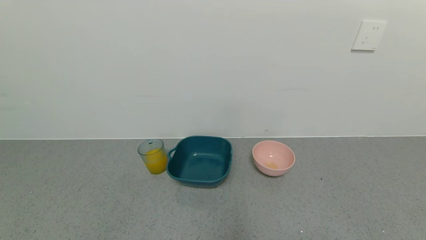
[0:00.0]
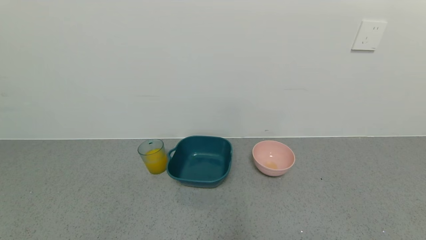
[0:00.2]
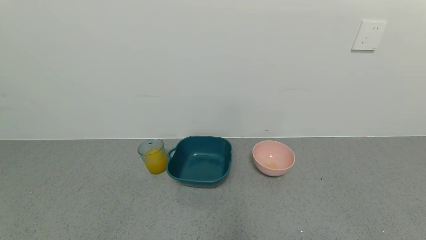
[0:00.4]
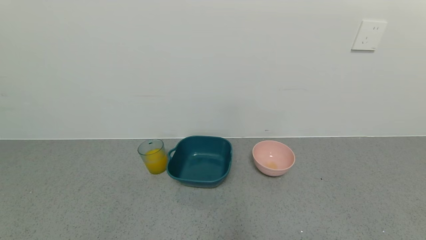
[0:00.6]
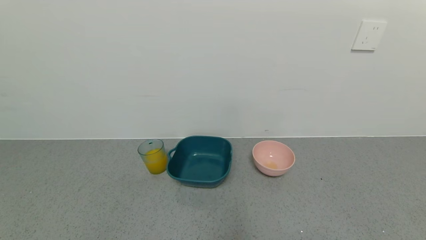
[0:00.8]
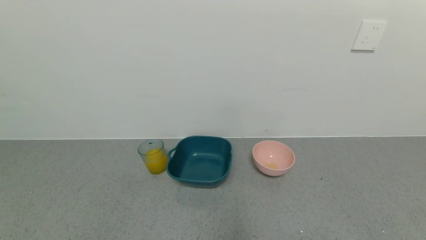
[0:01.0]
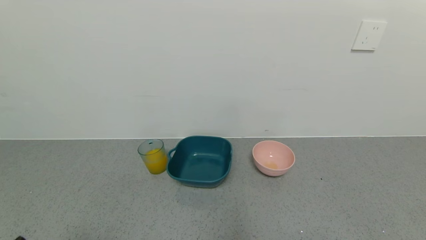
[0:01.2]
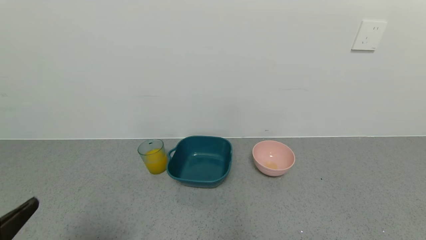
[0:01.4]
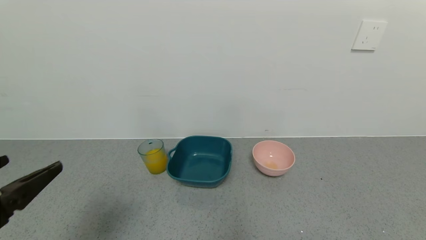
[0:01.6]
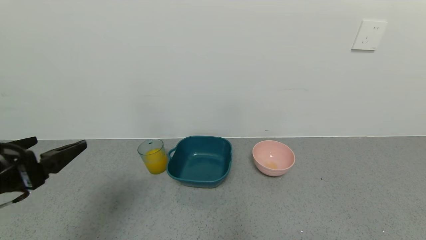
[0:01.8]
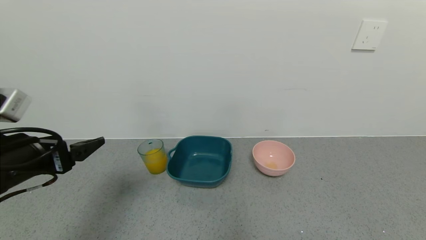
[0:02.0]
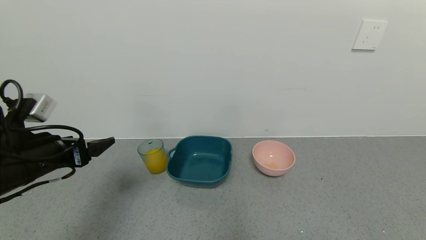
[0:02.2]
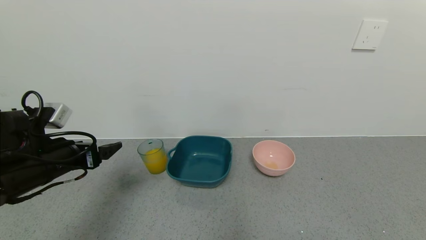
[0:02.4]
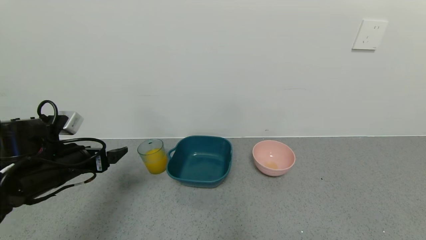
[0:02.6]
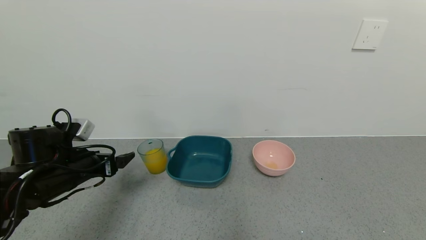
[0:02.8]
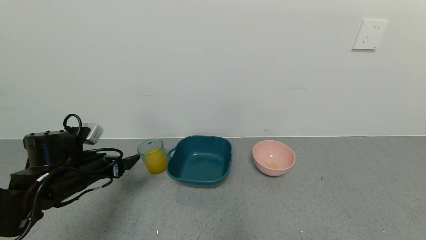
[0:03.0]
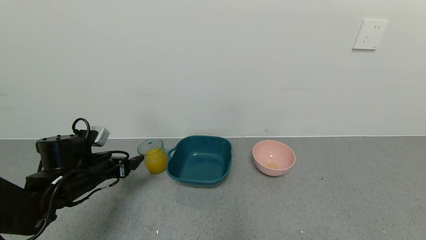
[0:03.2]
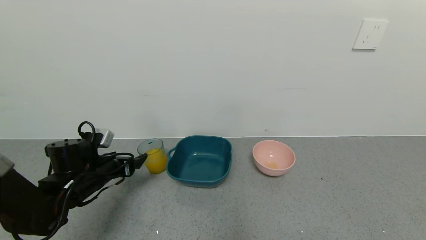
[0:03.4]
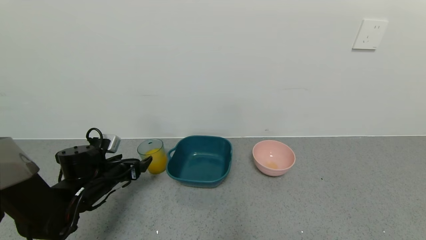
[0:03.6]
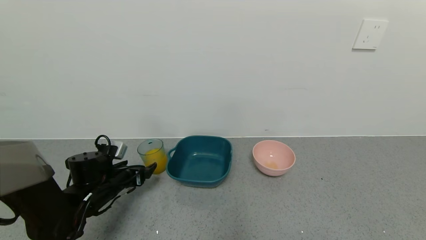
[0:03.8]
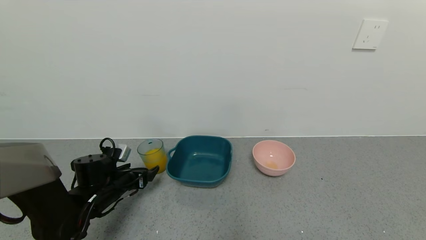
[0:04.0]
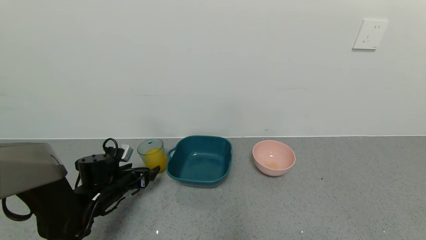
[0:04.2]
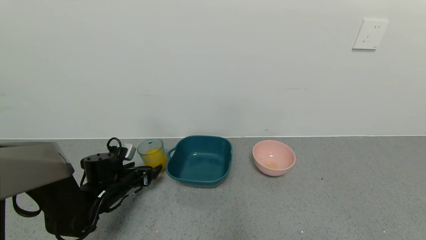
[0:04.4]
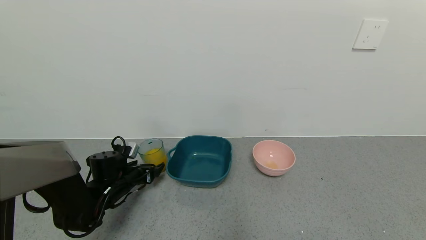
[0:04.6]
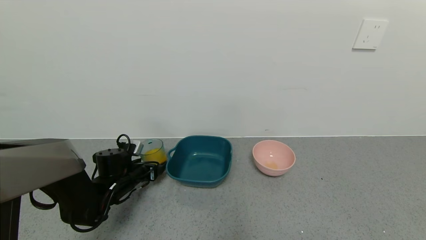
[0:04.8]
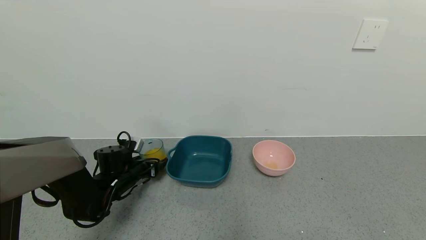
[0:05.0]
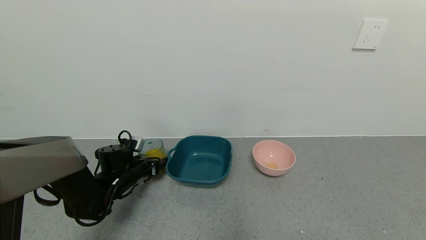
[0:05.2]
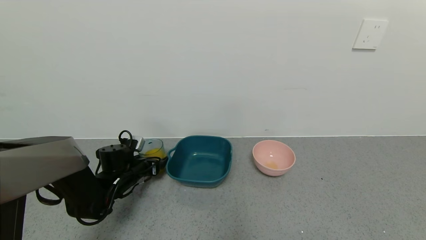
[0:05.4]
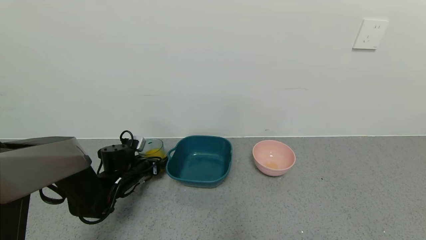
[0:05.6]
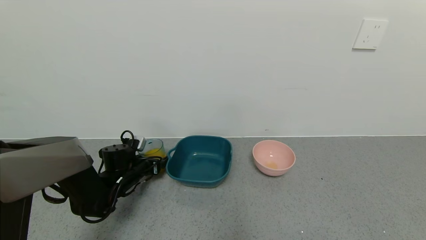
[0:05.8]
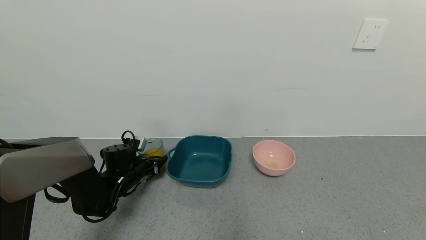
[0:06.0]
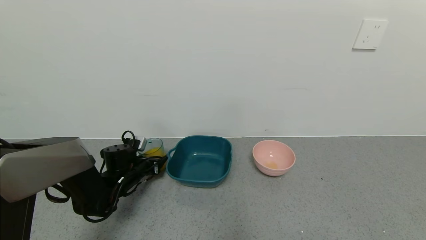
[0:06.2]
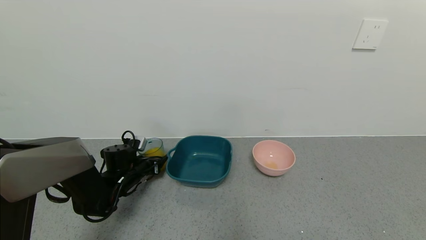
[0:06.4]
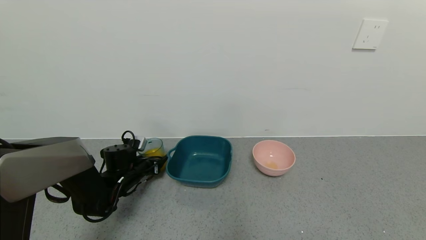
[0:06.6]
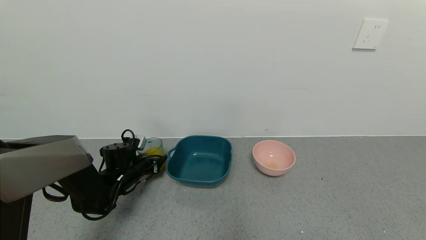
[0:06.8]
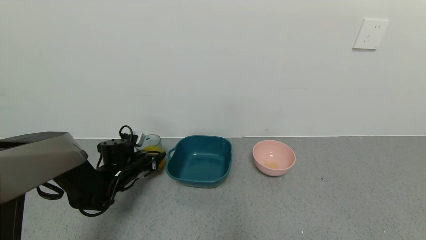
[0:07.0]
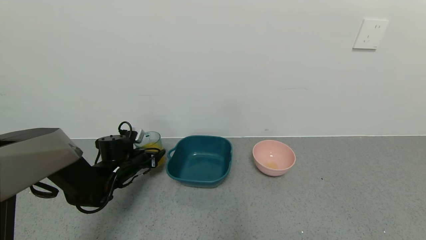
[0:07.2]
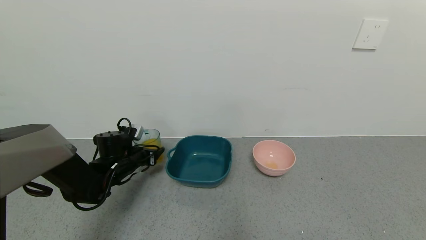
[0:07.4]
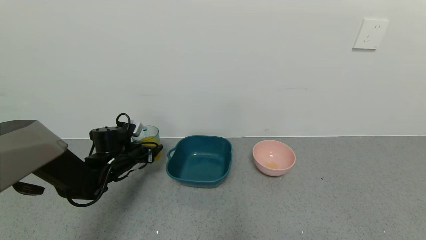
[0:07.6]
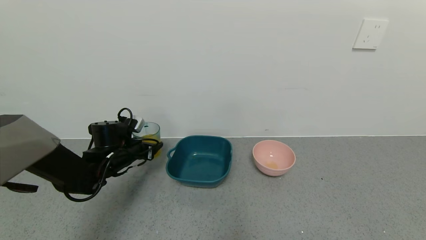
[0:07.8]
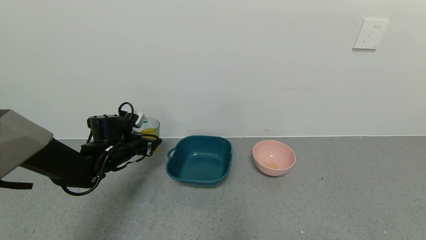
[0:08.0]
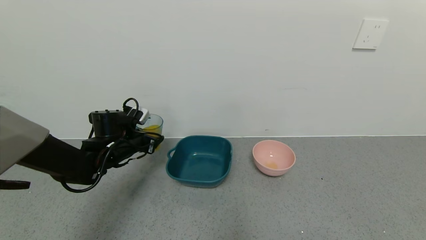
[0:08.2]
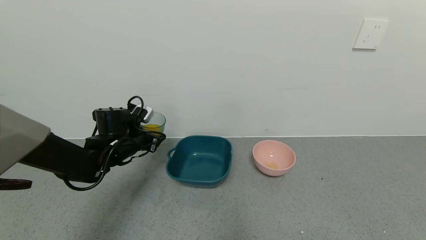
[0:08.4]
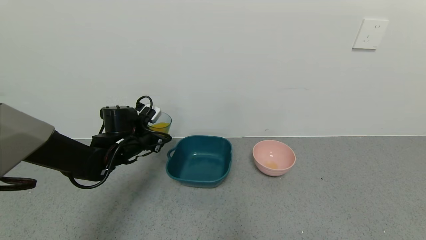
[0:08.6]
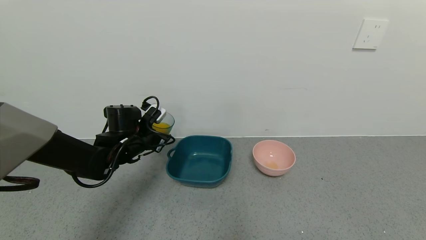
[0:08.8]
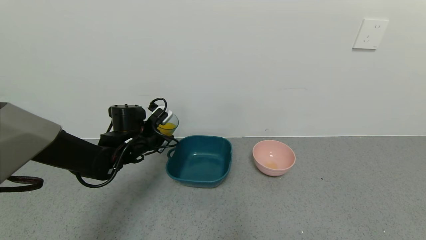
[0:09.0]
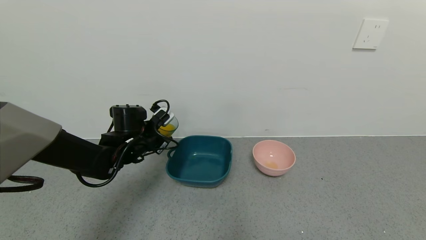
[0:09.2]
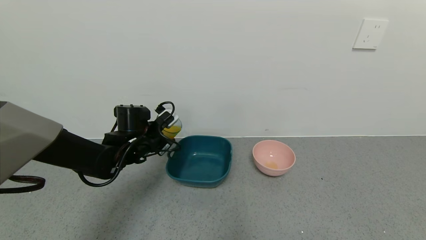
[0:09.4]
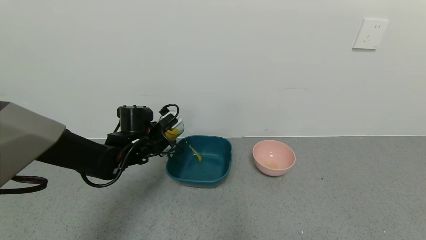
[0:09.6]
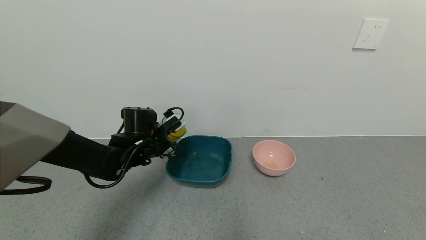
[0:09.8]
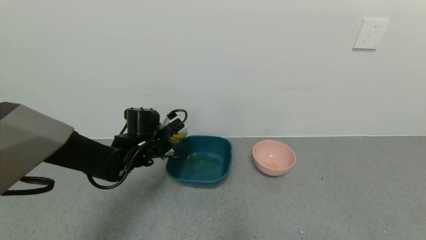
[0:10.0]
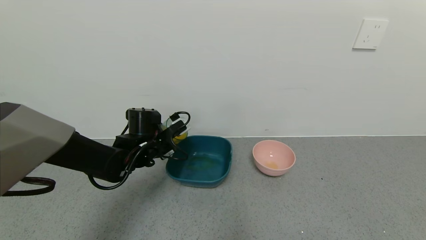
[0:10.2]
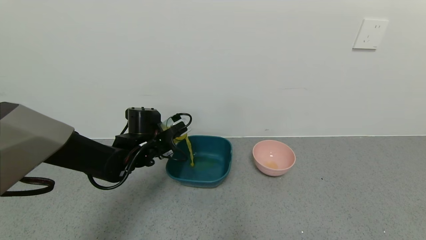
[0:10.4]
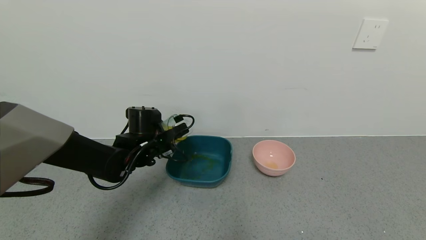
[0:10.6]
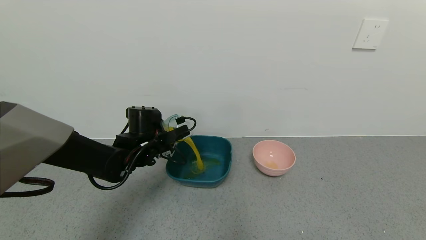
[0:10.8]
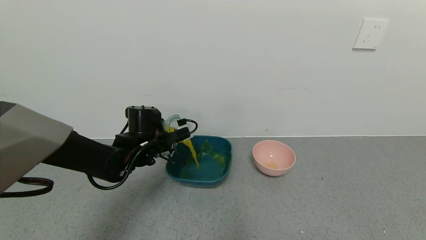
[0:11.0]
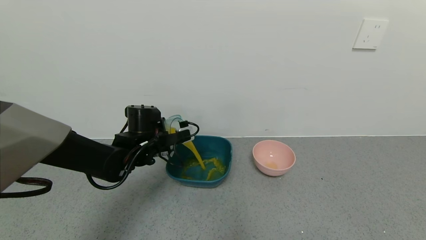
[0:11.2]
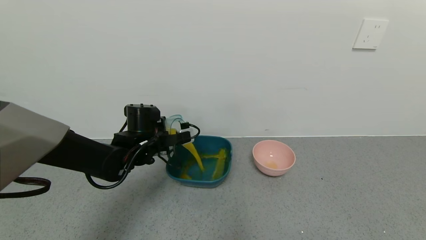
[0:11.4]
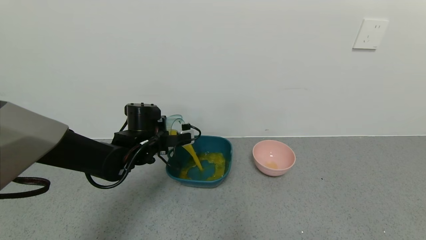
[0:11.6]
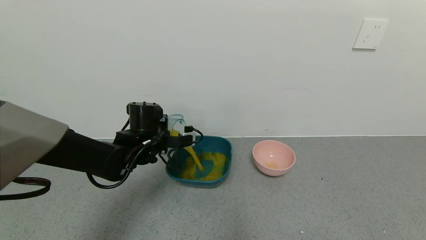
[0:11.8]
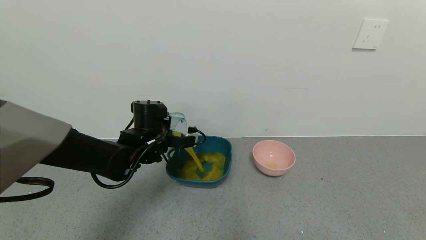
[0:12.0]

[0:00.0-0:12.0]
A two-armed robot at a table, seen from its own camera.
Task of the whole recording: use a gripper to pick up the cup and pour the liquid into a bowl or tray.
Step, 0:06.4 to 0:09.0: Pick up blue cup filled with orange juice with left gripper.
0:00.0 to 0:01.6: The left gripper moves upward and forward, roughly 20 cm.
0:01.6 to 0:03.0: The left gripper goes roughly 20 cm forward and downward.
0:03.0 to 0:04.4: The left gripper is displaced downward and forward by some 10 cm.
0:04.4 to 0:06.0: The left gripper closes.
0:06.0 to 0:07.6: The left gripper shifts some 5 cm upward.
0:07.6 to 0:09.0: The left gripper is displaced to the right and upward by roughly 10 cm.

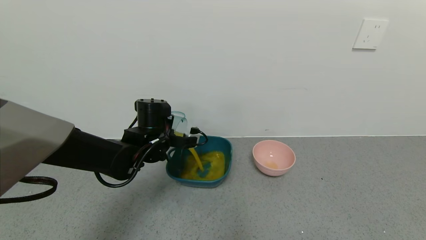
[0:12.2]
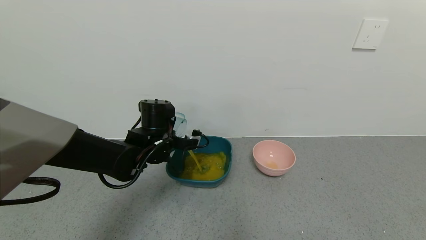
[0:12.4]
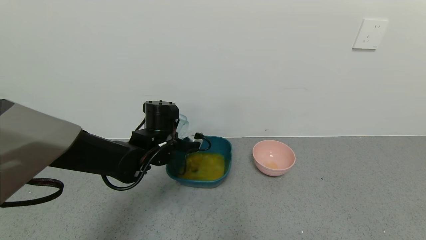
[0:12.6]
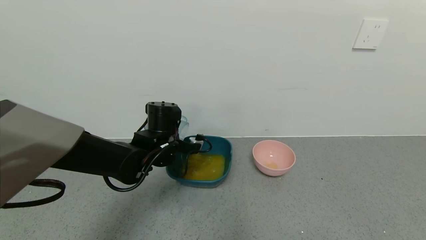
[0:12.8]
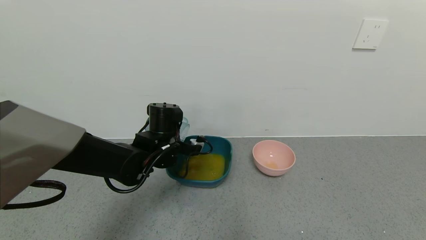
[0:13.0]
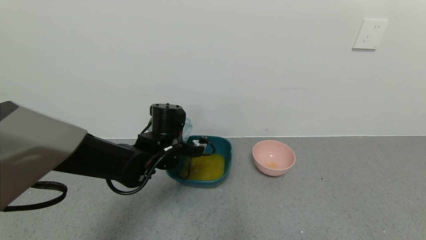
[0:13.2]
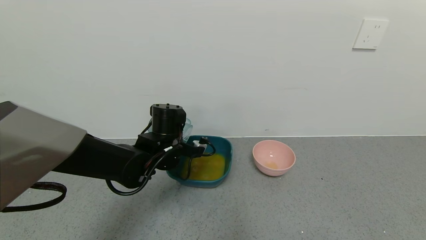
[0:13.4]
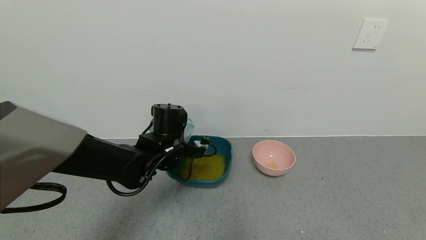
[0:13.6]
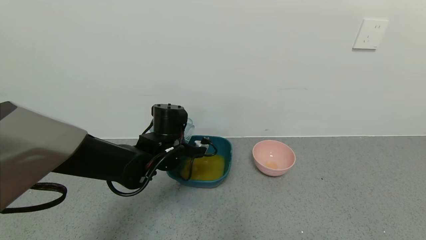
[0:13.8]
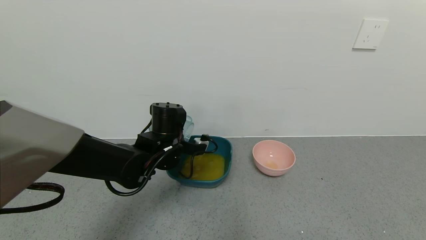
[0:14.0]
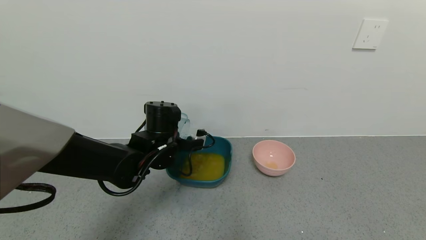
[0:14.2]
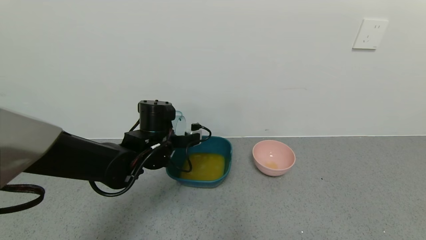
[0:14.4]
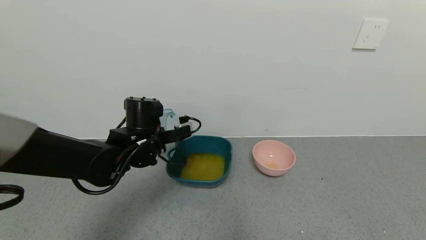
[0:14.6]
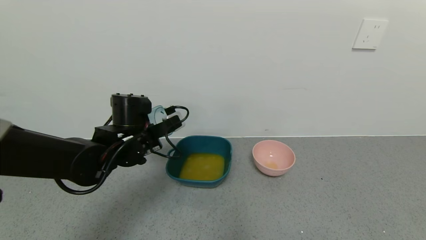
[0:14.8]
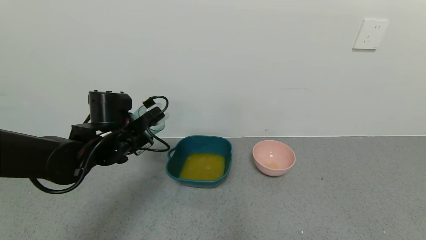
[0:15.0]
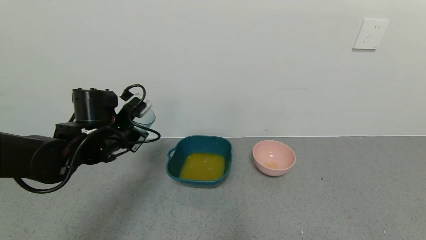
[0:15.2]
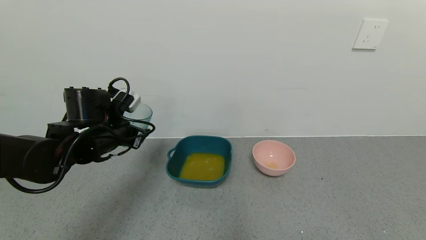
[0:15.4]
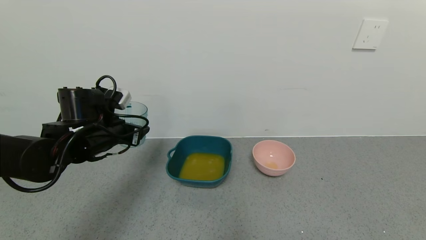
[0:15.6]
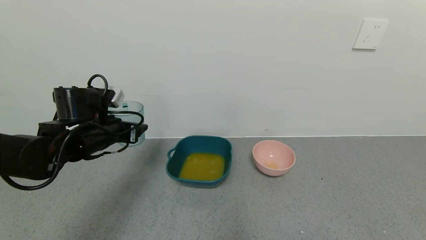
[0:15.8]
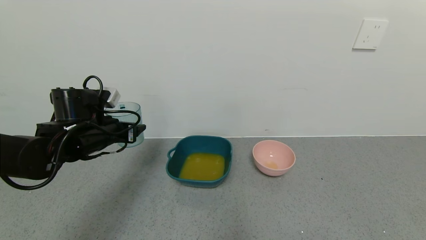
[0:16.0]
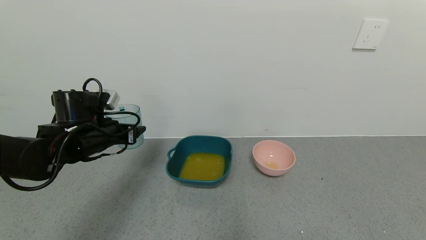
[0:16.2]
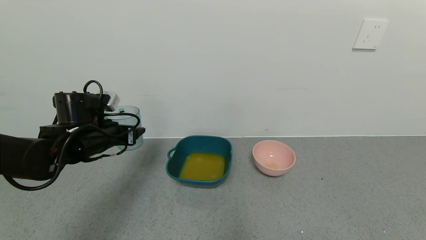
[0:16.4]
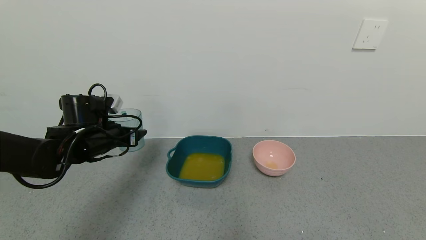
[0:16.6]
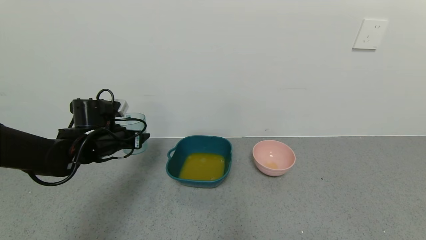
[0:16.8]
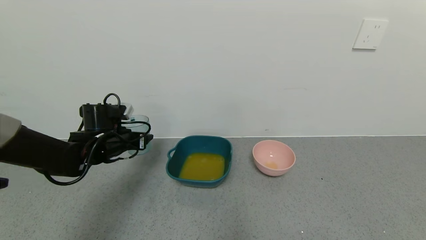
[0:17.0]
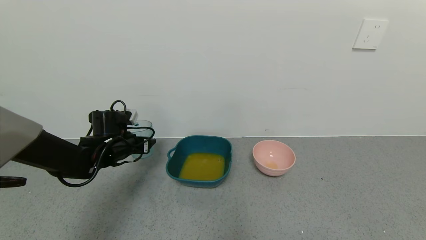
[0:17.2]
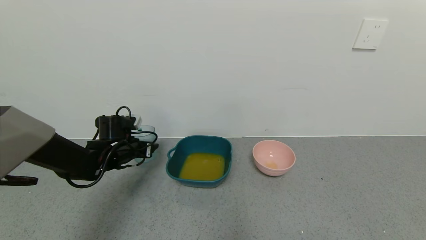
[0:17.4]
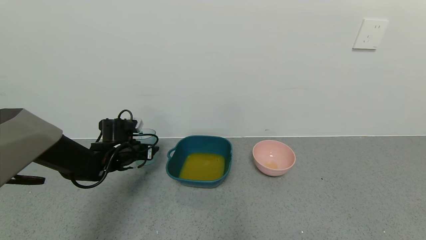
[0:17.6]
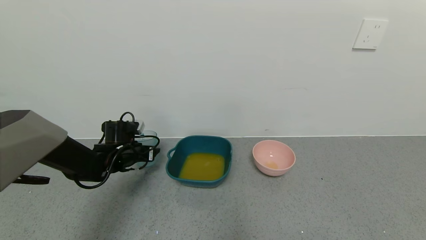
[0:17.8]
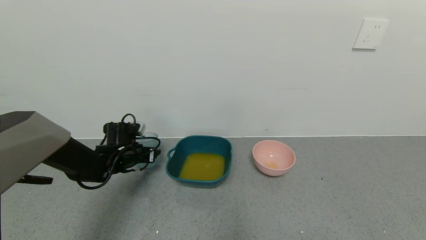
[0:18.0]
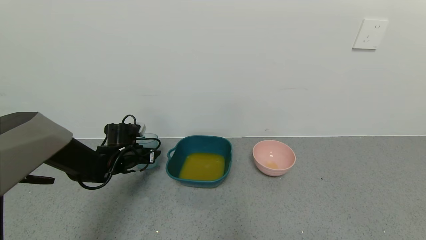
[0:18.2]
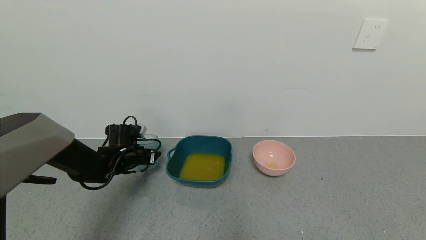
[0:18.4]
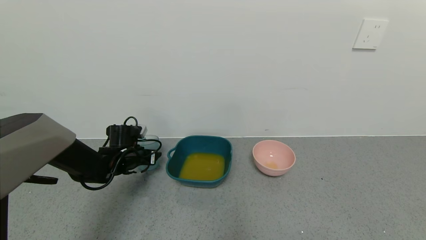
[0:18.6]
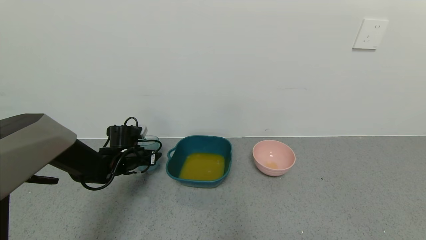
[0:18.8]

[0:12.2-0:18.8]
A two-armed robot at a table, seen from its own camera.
Task of the whole recording: use a gripper to pick up the cup and pour the liquid into a bowl or tray.
0:12.2 to 0:13.8: The grippers move only a little.
0:13.8 to 0:15.4: The left gripper is displaced to the left by roughly 10 cm.
0:15.4 to 0:17.2: The left gripper heads downward and forward, covering roughly 10 cm.
0:17.2 to 0:18.8: The left gripper is displaced downward by some 5 cm.
